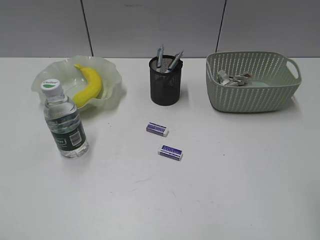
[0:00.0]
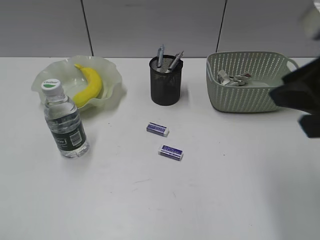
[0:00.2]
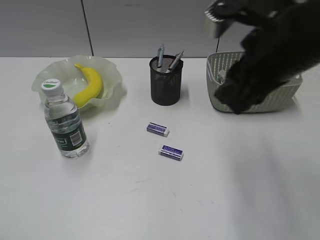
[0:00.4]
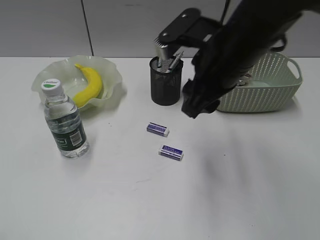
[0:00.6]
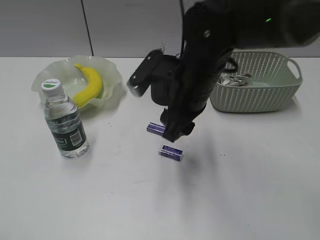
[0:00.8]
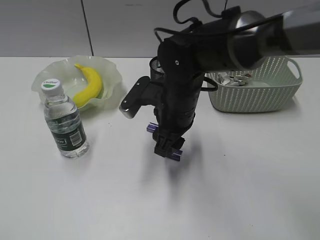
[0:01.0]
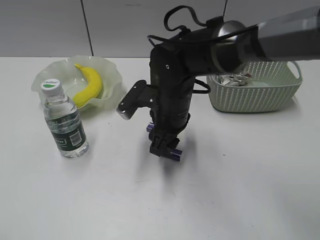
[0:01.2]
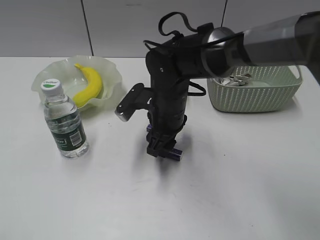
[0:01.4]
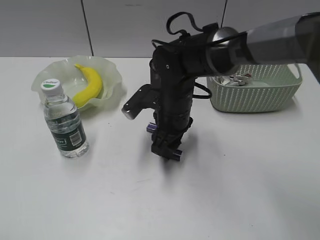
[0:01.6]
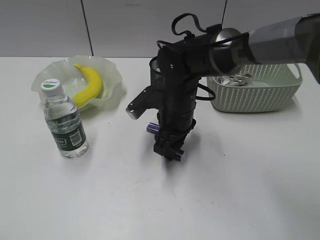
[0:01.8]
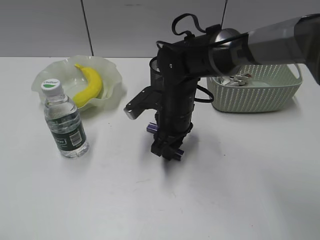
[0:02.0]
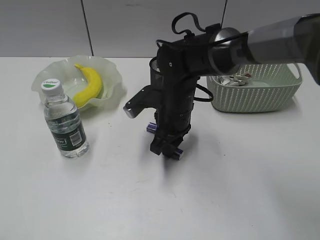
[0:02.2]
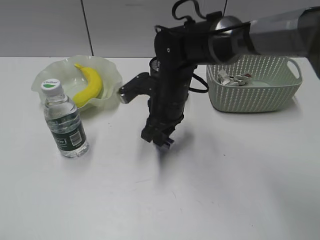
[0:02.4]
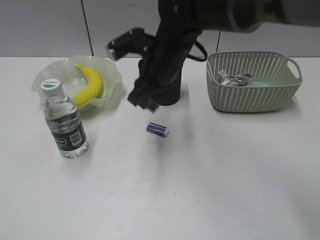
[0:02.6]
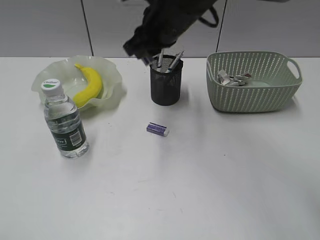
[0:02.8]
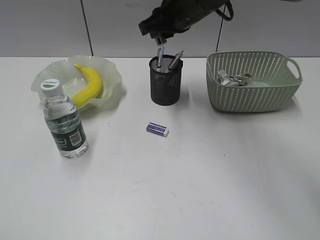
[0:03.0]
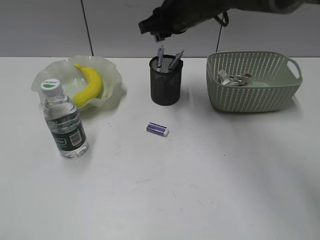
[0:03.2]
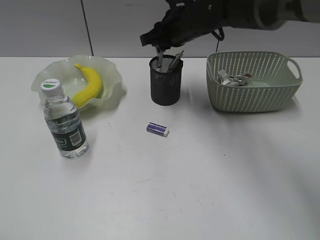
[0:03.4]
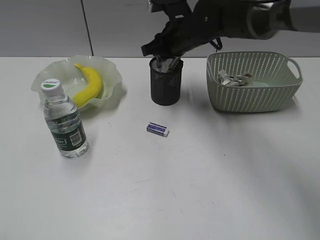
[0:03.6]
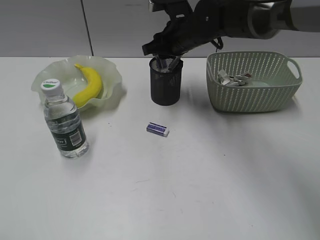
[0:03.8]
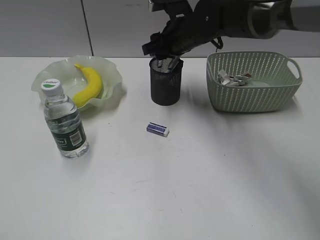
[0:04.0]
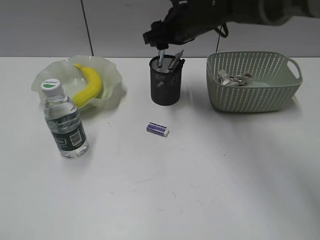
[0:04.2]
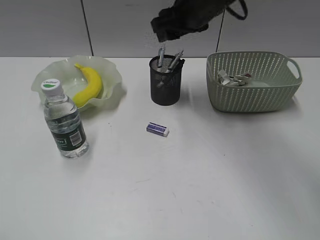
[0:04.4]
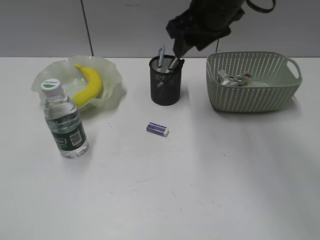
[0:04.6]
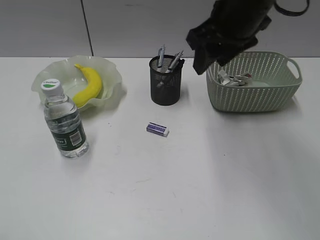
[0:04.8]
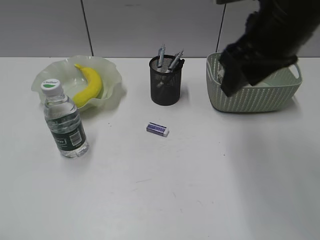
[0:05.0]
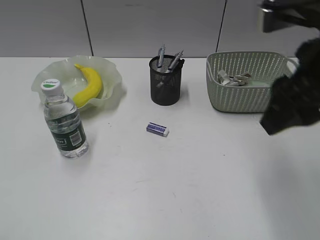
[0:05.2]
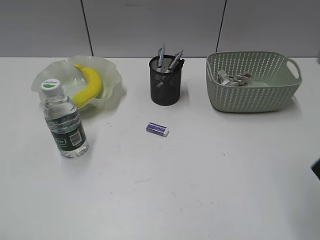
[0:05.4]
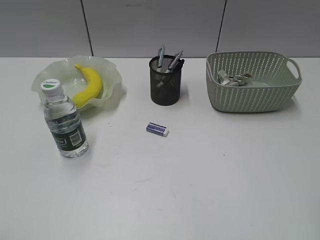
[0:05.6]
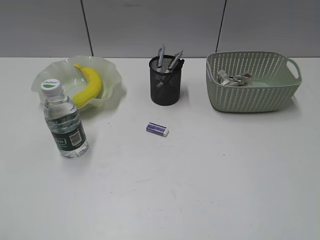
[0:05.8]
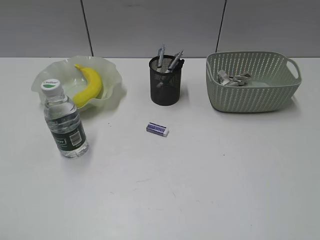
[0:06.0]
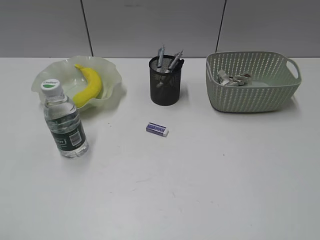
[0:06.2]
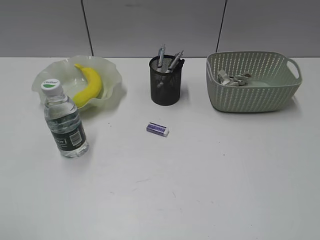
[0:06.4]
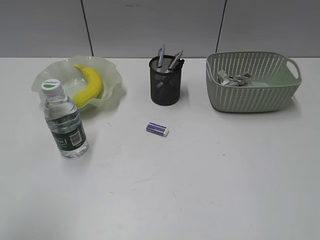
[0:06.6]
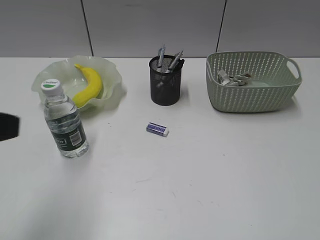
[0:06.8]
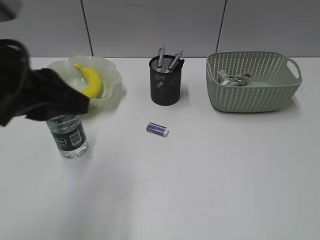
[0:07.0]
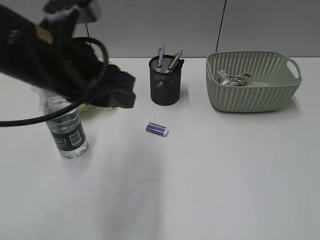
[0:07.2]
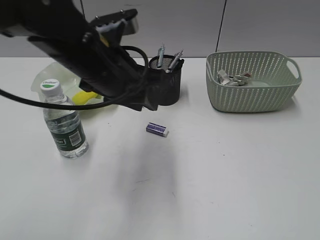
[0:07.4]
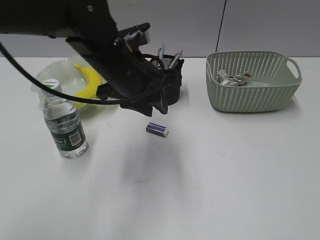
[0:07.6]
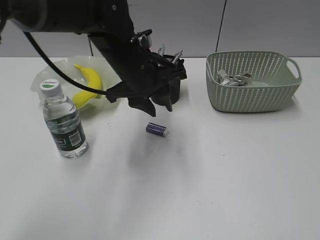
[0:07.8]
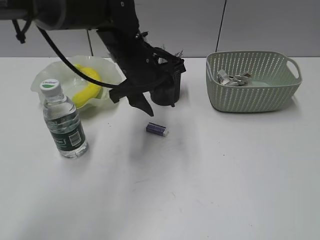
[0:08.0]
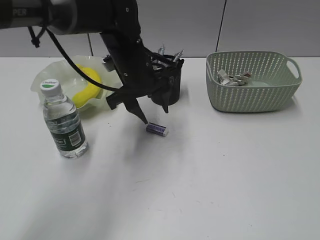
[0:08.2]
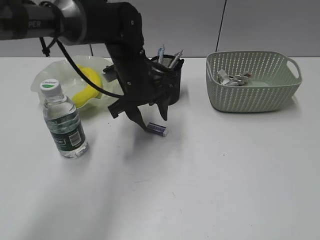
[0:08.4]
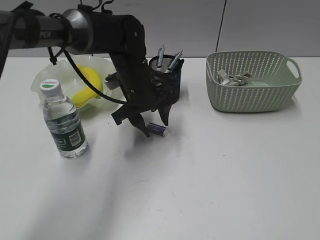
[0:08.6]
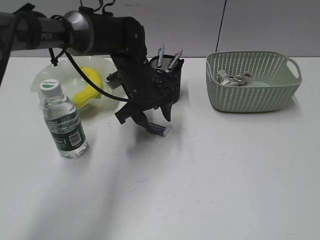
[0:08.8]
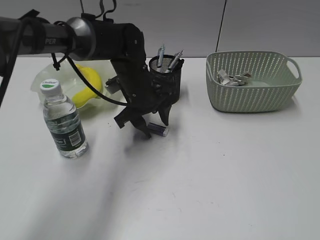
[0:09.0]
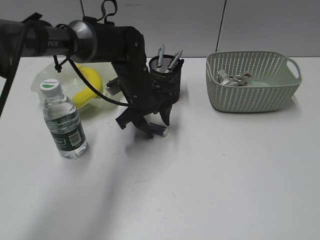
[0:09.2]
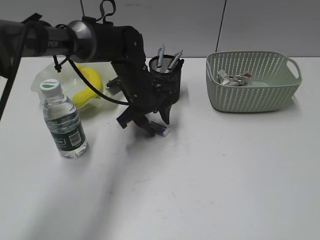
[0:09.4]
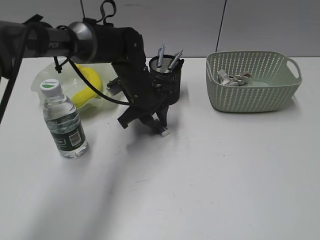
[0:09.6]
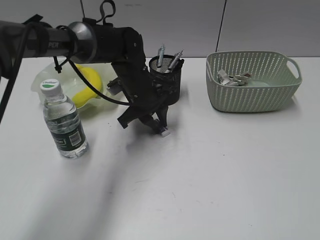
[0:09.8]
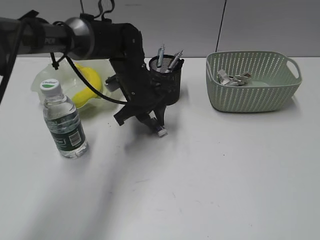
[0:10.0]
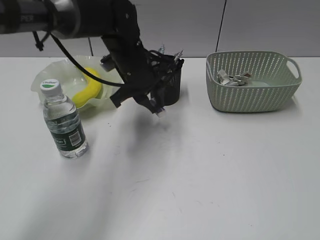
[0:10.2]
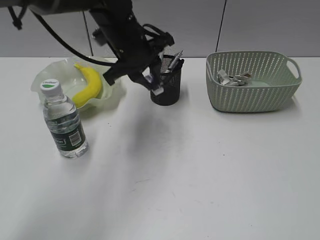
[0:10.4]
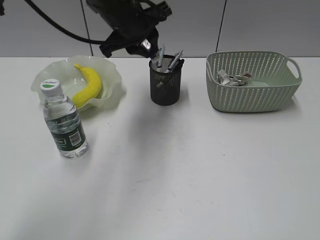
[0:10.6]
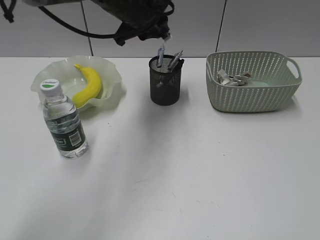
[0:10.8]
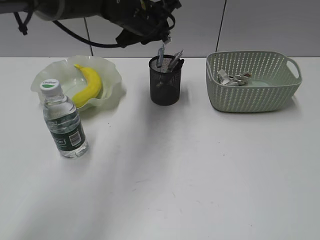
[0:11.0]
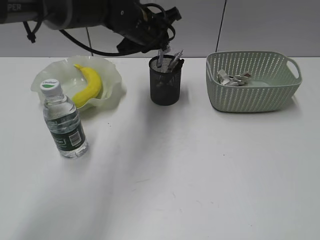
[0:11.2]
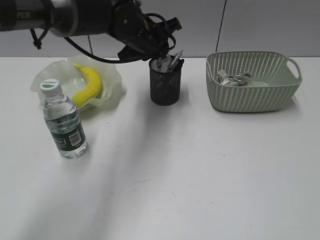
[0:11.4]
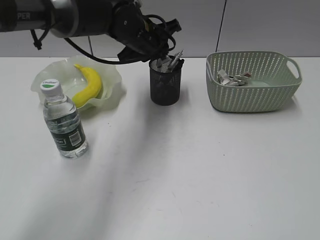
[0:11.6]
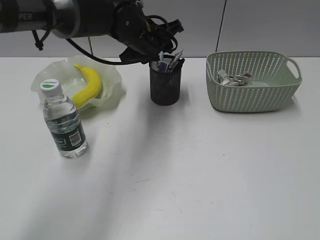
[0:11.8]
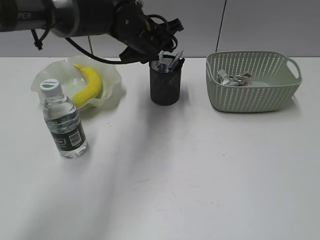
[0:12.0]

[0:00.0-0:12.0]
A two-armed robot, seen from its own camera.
Step, 0:00.0 to 0:02.0: Grasp the eraser with right gripper.
Step, 0:02.2 to 0:04.0: Place the eraser in pen holder with right gripper.
Step, 0:04.2 to 0:09.8: Grasp the eraser with left gripper.
Step, 0:10.0 to 0:12.0: Place the eraser in pen holder with left gripper.
0:00.0 to 0:01.6: The right gripper shifts approximately 40 cm forward, to the left and downward, and opens.
0:01.6 to 0:03.0: The right gripper shifts about 15 cm upward and forward, and closes its fingers.
0:03.0 to 0:04.4: The right gripper goes downward and returns, about 5 cm each way, and opens its fingers.
0:04.4 to 0:06.0: The right gripper heads backward and to the right, covering roughly 50 cm.
0:06.0 to 0:07.6: The left gripper is displaced forward and to the right by roughly 40 cm.
0:07.6 to 0:09.0: The left gripper heads downward and forward, covering some 10 cm.
0:09.0 to 0:10.4: The left gripper is displaced upward by some 10 cm, and closes up.
0:10.4 to 0:12.0: The left gripper ends up some 5 cm from where it was.

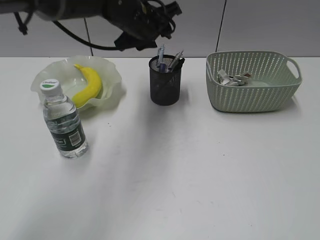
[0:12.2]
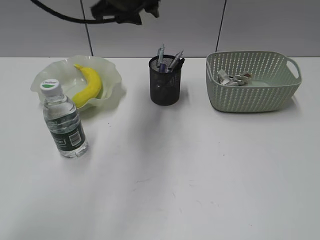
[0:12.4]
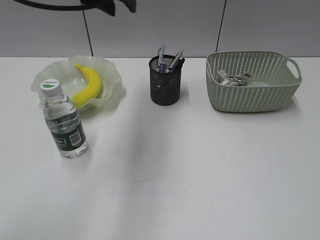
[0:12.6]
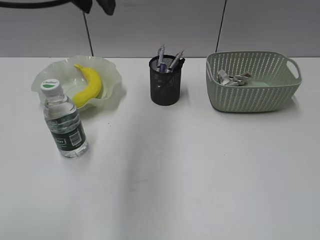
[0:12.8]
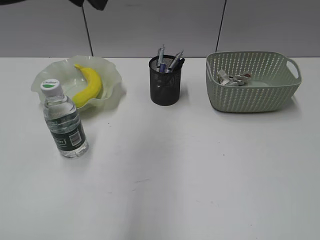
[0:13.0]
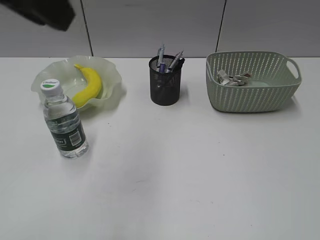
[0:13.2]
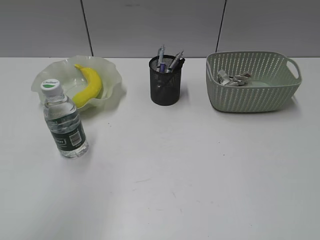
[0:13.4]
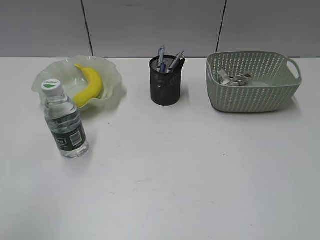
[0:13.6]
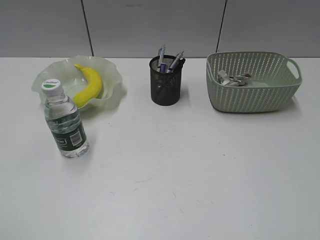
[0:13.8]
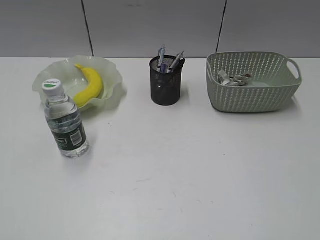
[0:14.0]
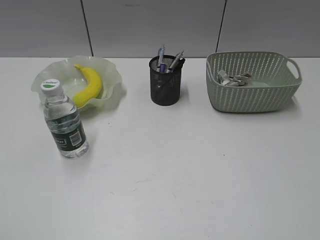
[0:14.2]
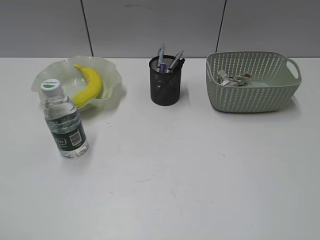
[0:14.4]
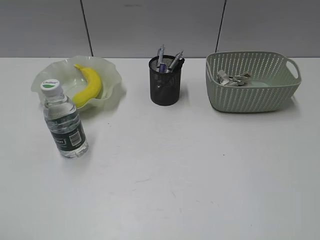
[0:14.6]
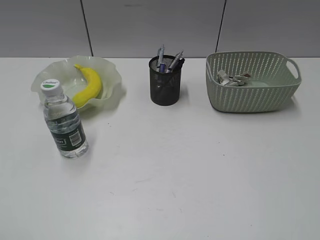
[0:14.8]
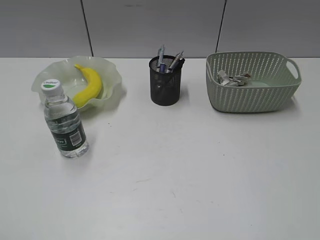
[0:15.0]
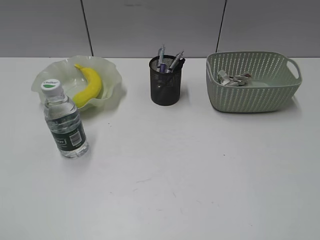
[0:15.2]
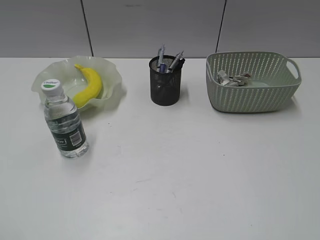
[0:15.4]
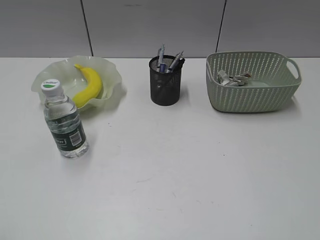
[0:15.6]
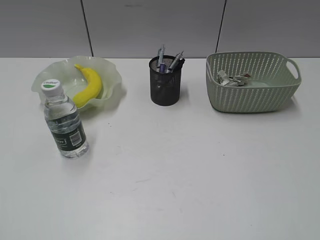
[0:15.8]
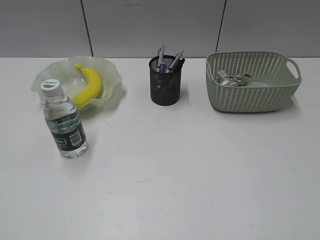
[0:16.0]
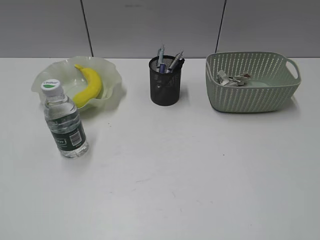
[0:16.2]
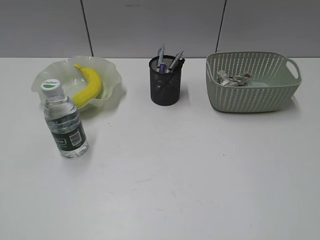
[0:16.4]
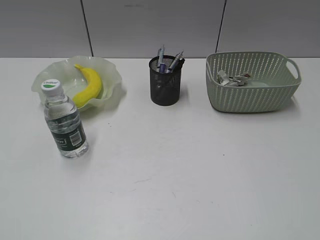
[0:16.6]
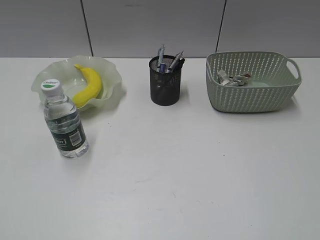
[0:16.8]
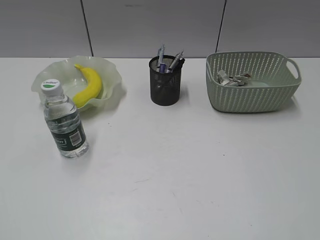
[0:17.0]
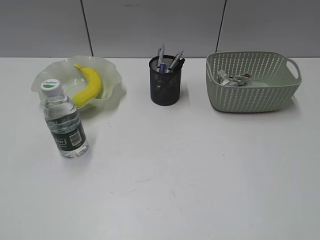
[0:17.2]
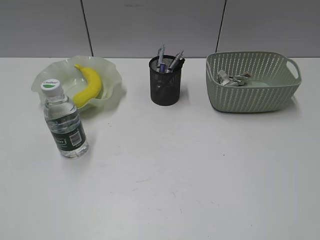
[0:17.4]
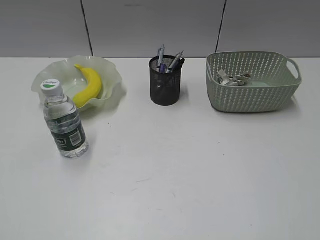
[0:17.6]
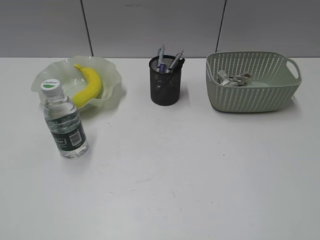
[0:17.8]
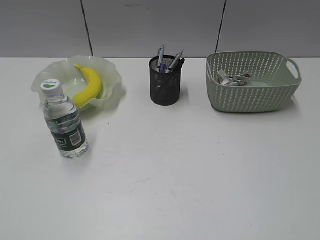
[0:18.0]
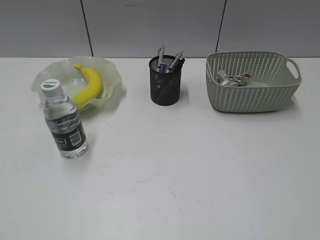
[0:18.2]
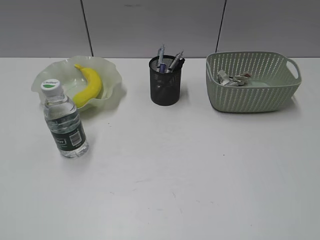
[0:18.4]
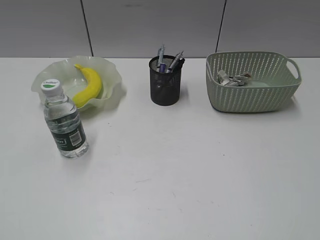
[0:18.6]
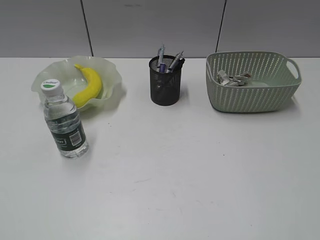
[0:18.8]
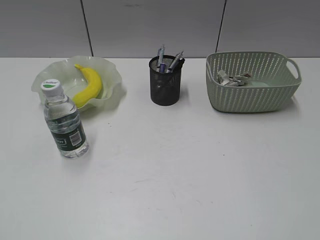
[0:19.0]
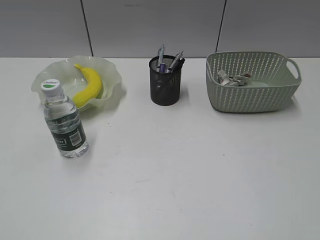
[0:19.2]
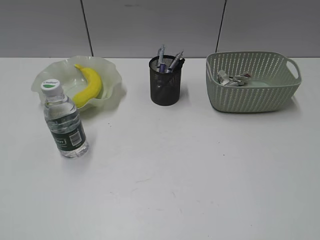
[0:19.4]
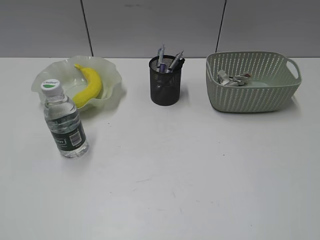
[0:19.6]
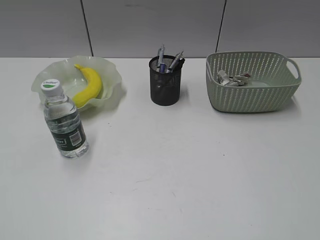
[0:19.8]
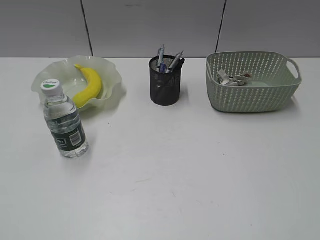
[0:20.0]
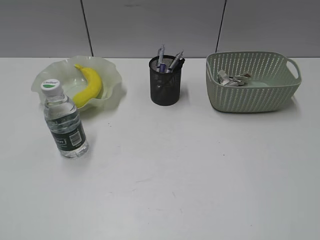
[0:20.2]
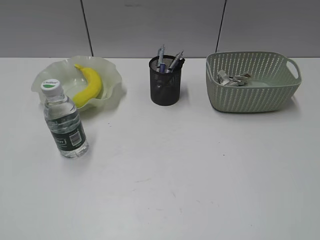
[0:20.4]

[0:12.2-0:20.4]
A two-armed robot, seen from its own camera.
0:12.2 to 0:13.8: The left gripper is displaced backward and to the left by roughly 50 cm.
0:17.2 to 0:20.4: Neither gripper changes place.

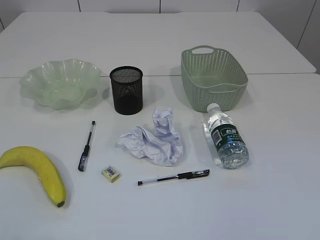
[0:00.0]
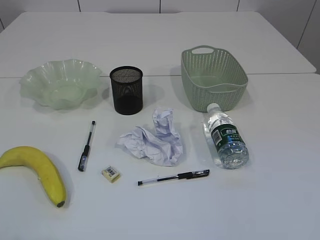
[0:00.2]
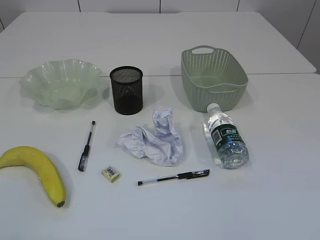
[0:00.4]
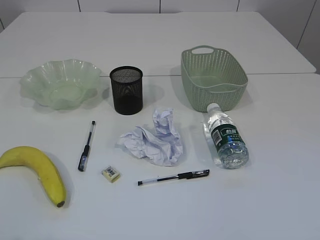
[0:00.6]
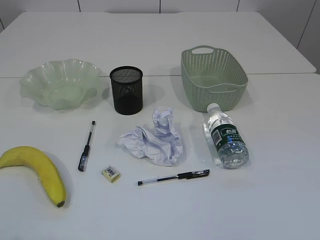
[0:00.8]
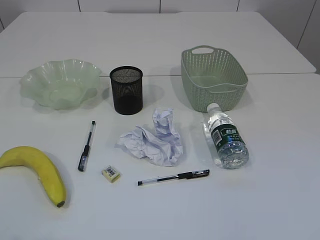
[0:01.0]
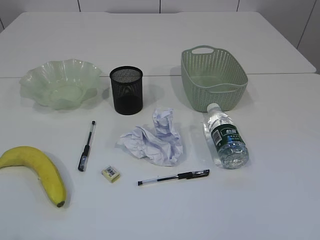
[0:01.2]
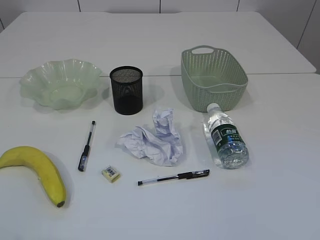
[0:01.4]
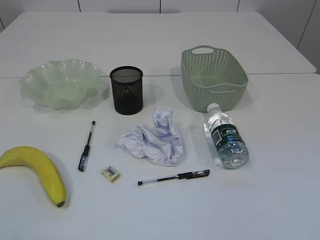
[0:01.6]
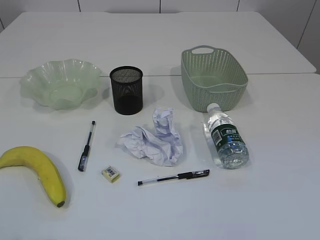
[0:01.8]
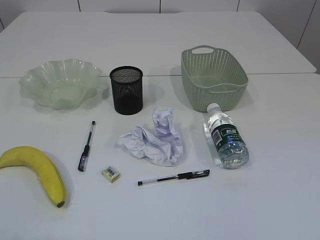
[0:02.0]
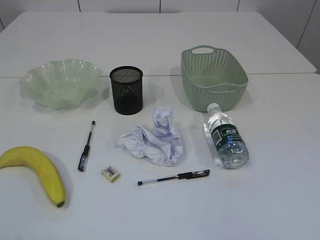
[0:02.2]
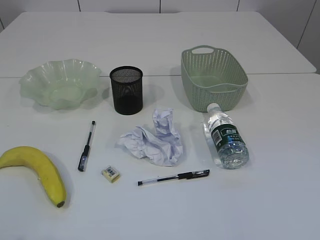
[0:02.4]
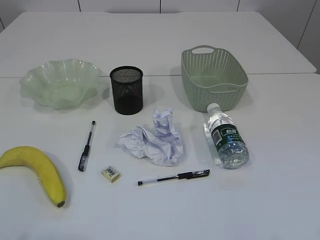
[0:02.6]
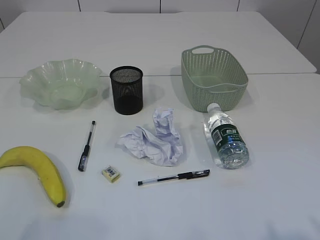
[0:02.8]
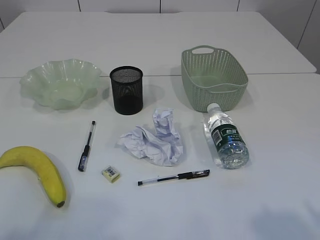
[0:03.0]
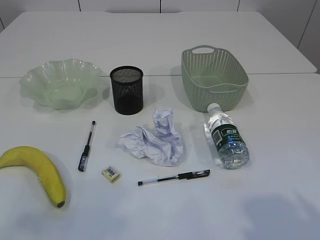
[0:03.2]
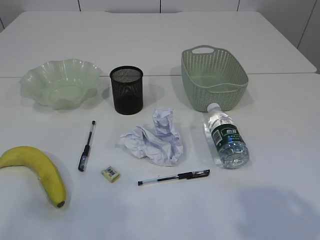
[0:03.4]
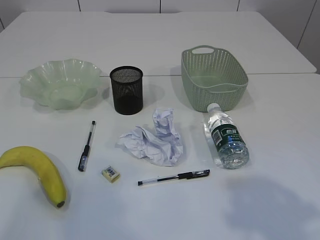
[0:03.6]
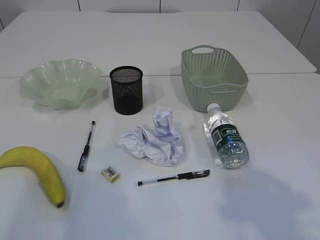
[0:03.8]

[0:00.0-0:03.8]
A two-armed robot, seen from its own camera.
0:02.6 to 0:03.8: The left gripper shifts approximately 15 cm forward and upward; the right gripper moves forward, approximately 10 cm.
